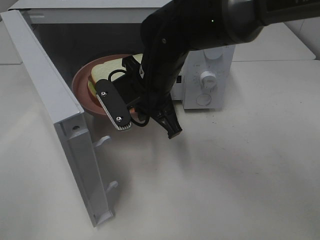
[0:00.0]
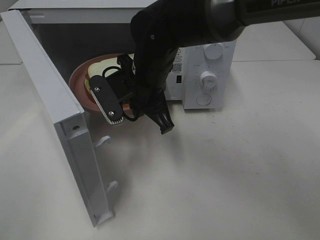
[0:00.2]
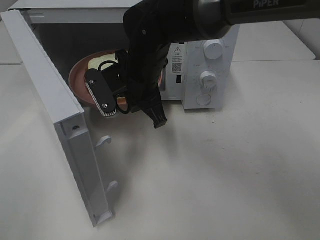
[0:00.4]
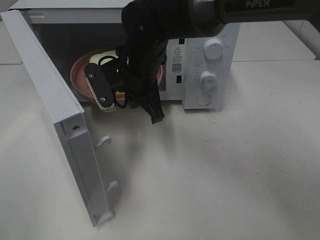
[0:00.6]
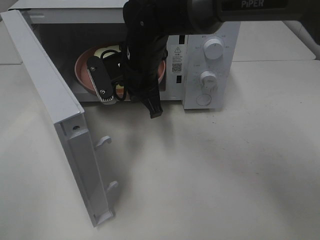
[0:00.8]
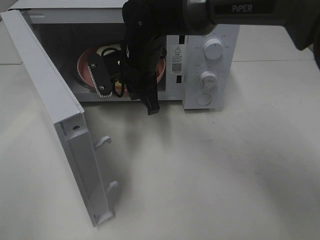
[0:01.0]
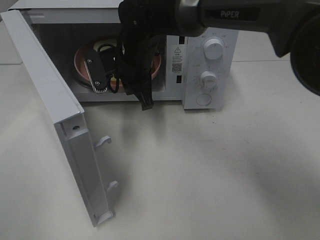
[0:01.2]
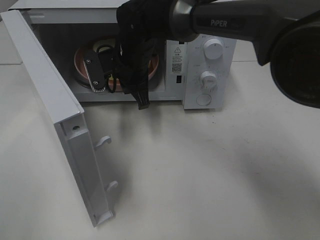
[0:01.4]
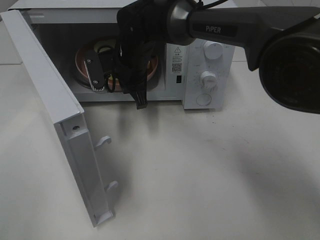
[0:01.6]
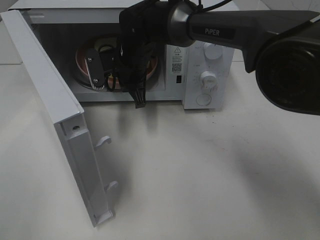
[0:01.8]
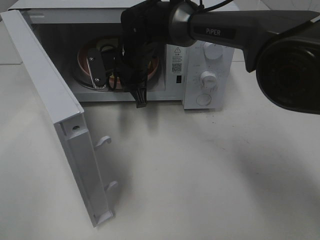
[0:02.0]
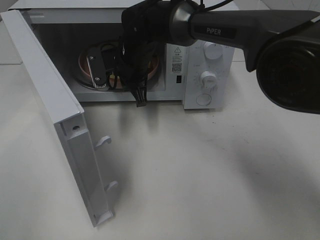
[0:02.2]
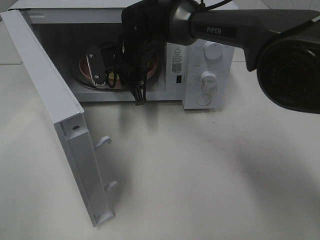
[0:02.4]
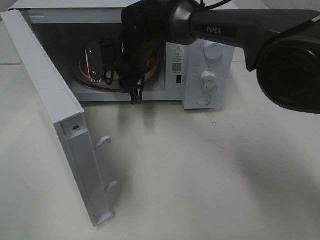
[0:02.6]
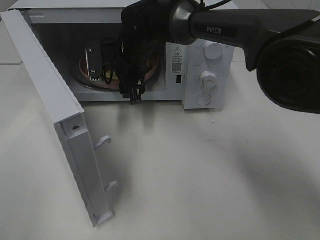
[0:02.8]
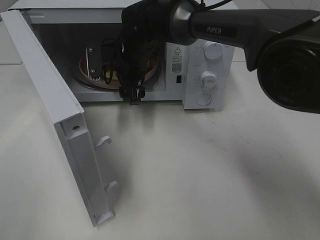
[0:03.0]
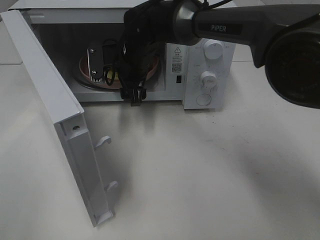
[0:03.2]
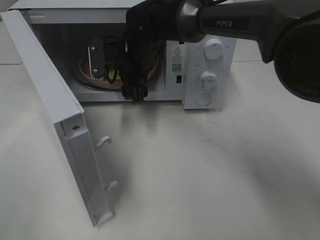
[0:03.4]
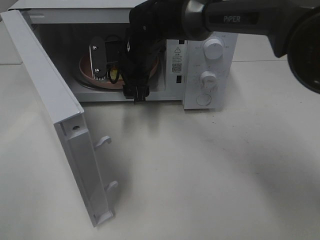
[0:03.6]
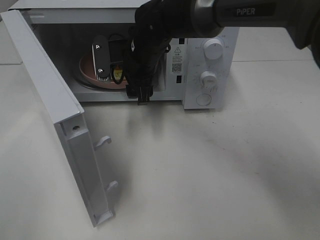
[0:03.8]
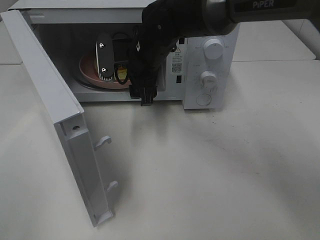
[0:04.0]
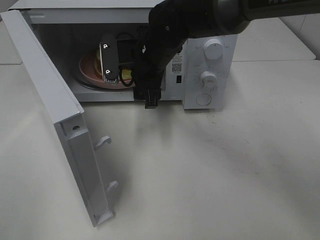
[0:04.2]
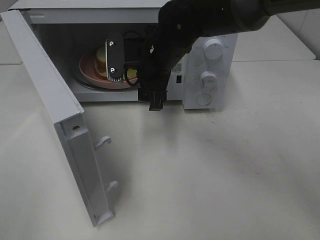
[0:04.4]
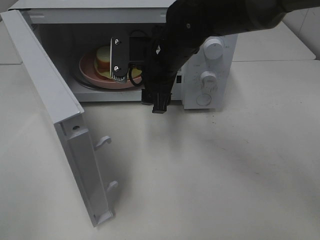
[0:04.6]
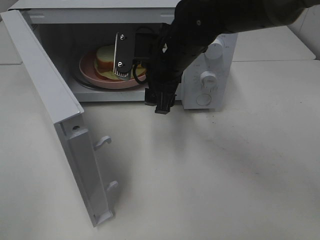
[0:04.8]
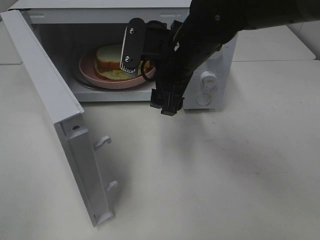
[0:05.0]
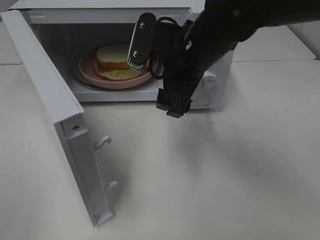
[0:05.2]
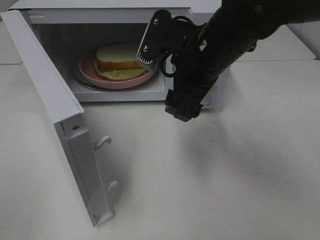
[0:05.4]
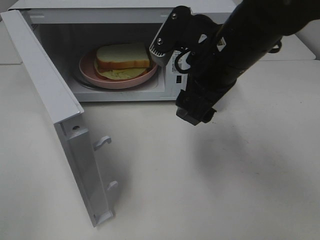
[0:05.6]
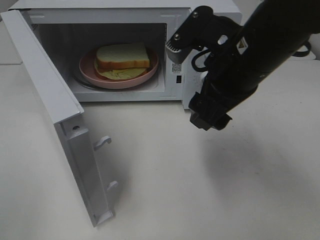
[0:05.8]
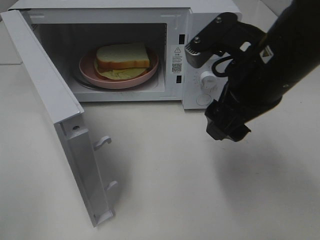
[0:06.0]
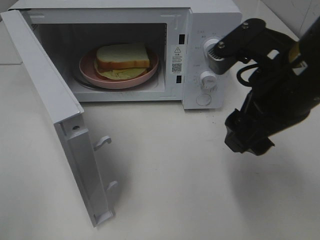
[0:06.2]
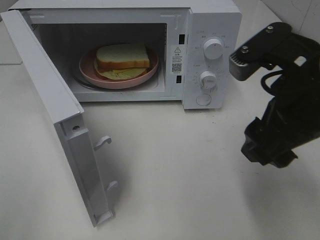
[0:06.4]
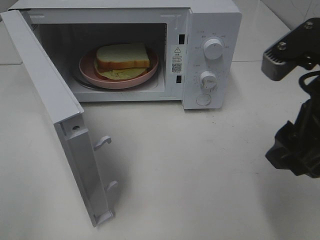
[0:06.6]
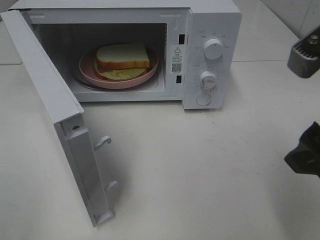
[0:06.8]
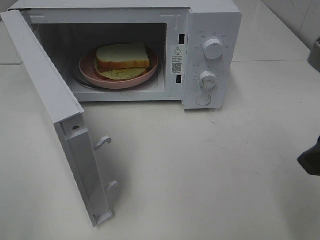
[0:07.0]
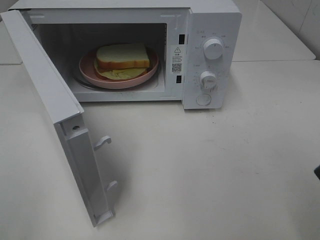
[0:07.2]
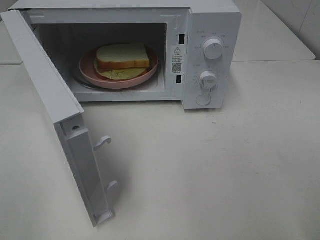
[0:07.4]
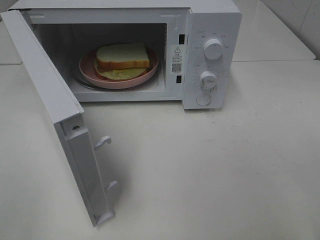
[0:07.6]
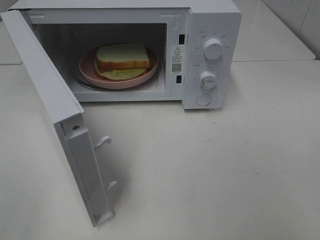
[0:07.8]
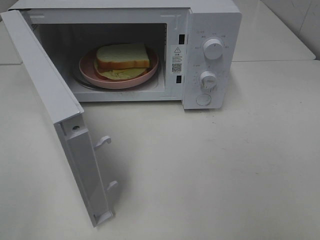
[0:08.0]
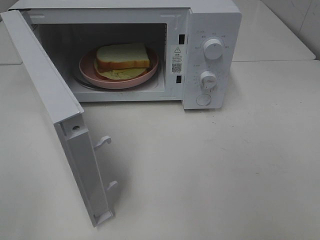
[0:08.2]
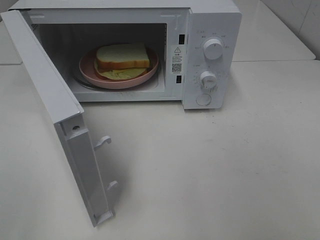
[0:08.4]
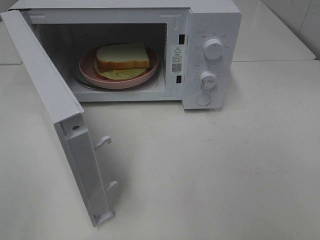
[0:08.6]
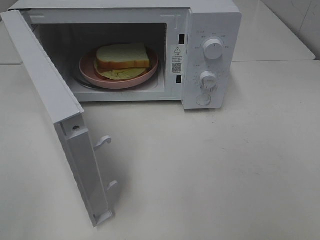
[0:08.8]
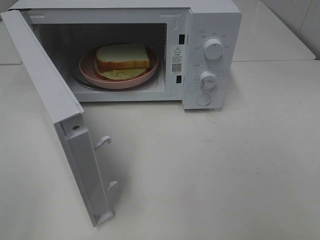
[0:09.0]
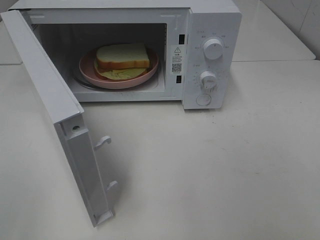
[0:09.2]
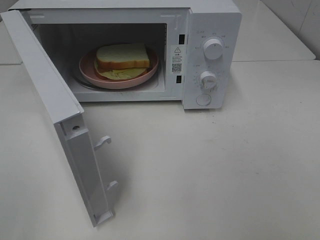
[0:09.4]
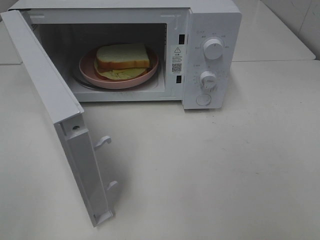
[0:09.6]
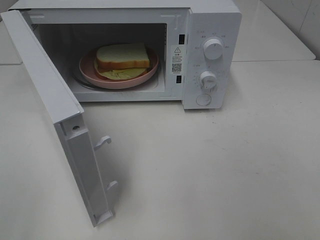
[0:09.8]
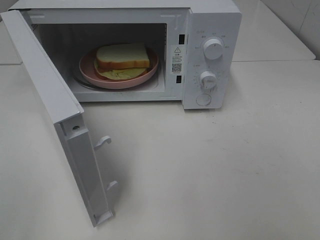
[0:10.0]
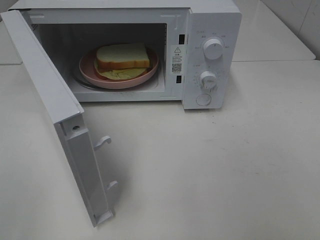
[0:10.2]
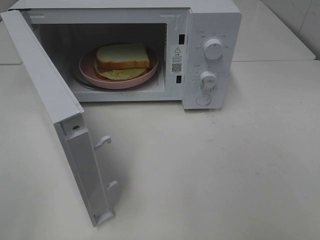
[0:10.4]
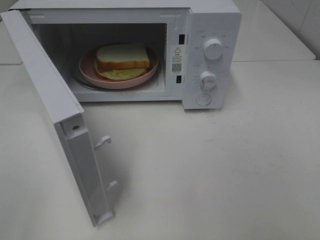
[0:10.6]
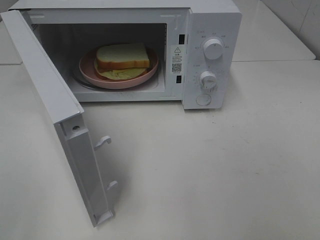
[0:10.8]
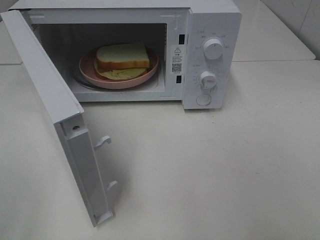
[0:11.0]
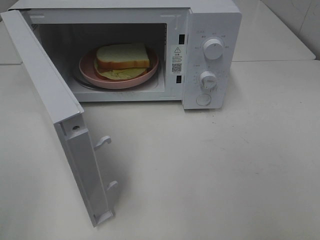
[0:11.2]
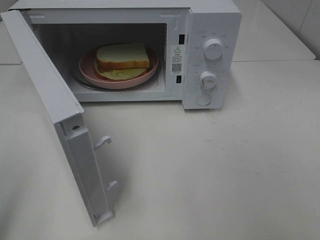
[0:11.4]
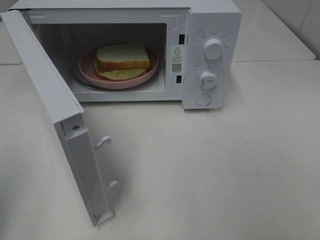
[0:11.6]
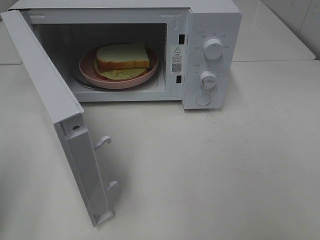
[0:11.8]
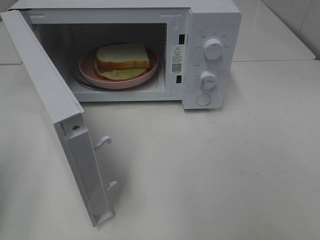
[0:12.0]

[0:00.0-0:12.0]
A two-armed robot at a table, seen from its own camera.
Task of the whole recording: Heat Sandwich.
Step, 0:00.0 to 0:03.8: Right hand: place the plate in the microwave.
0:00.0 to 0:01.6: The right gripper goes about 10 cm forward.
0:01.6 to 0:03.0: The right gripper opens its fingers.
0:03.0 to 0:04.4: The right gripper is displaced backward and to the right by approximately 10 cm.
0:04.4 to 0:06.0: The right gripper is displaced backward, to the right and upward by some 20 cm.
0:06.0 to 0:07.6: The right gripper moves backward and to the right, some 20 cm.
0:09.0 to 0:10.4: Neither gripper changes place.

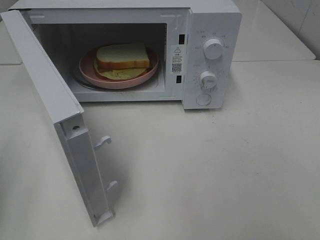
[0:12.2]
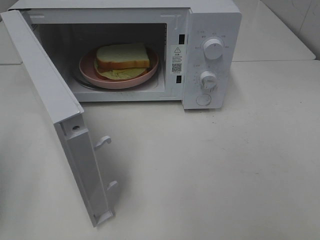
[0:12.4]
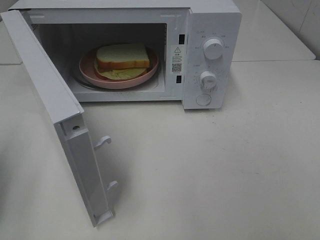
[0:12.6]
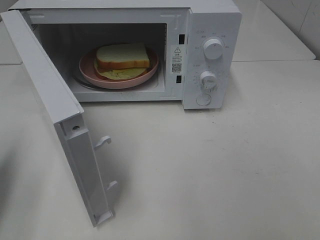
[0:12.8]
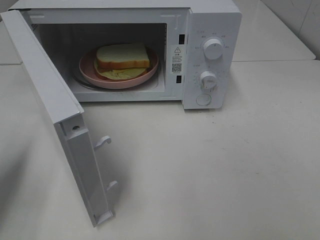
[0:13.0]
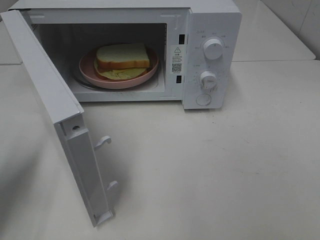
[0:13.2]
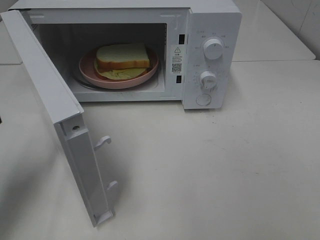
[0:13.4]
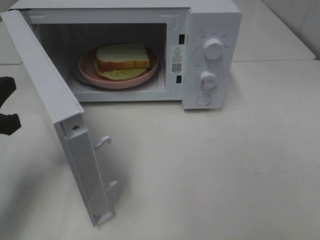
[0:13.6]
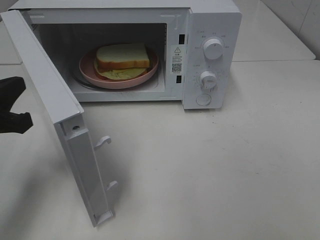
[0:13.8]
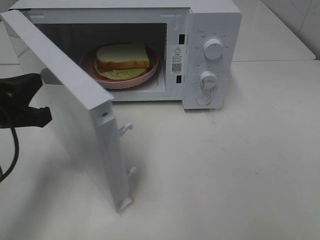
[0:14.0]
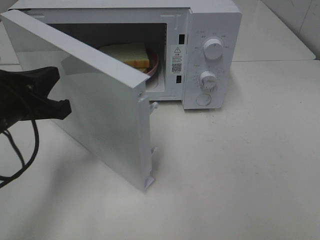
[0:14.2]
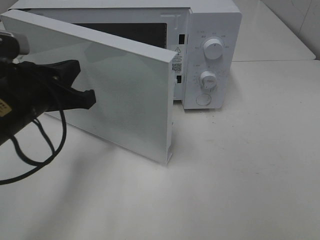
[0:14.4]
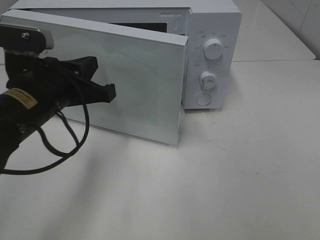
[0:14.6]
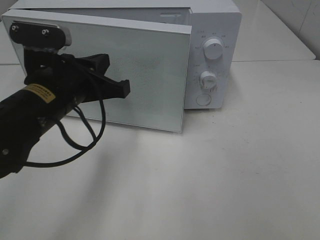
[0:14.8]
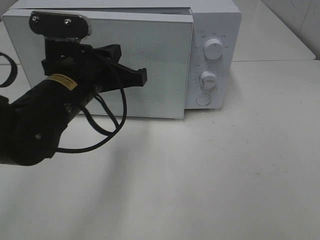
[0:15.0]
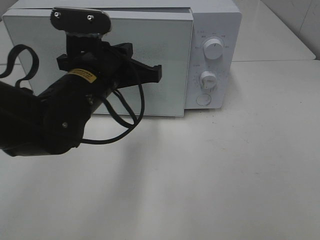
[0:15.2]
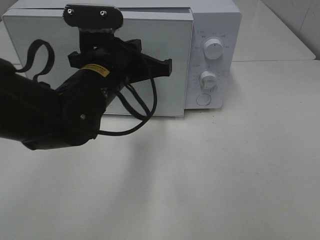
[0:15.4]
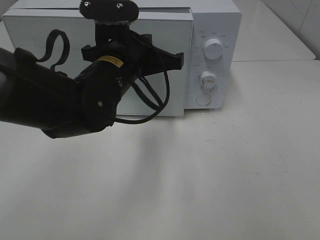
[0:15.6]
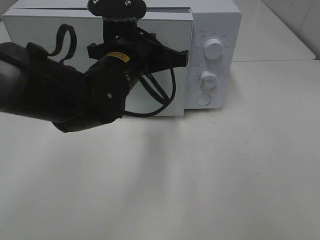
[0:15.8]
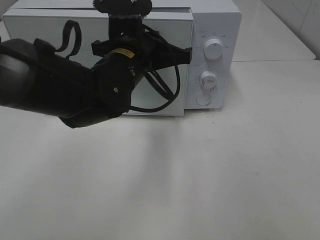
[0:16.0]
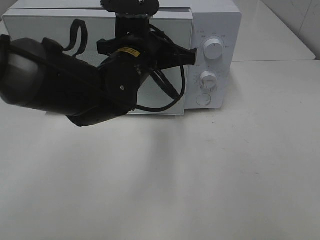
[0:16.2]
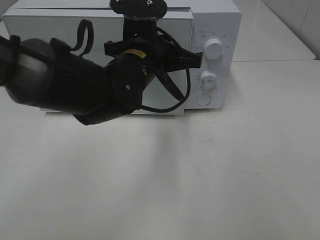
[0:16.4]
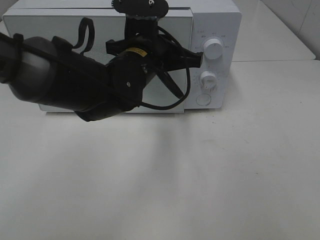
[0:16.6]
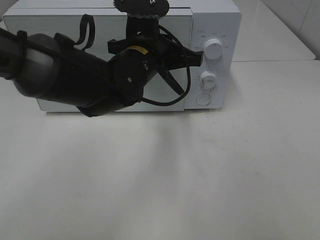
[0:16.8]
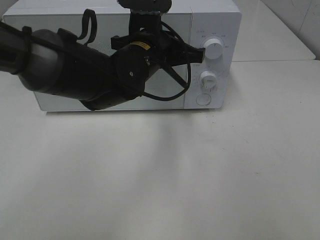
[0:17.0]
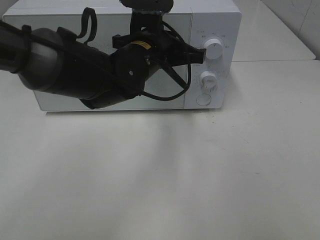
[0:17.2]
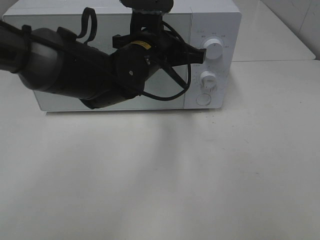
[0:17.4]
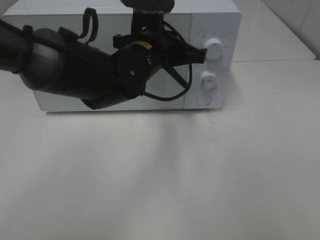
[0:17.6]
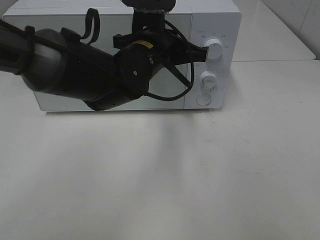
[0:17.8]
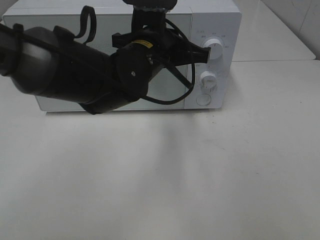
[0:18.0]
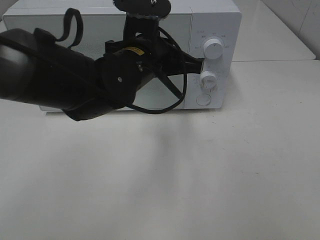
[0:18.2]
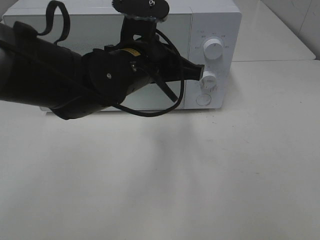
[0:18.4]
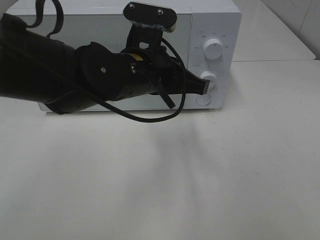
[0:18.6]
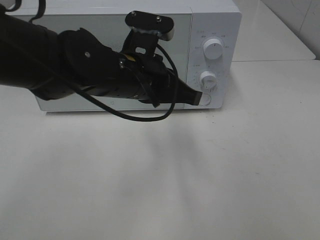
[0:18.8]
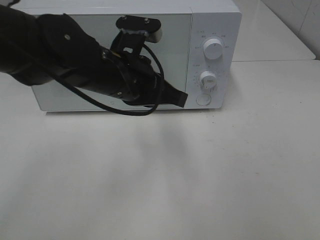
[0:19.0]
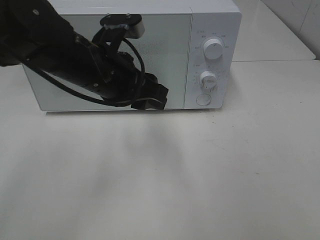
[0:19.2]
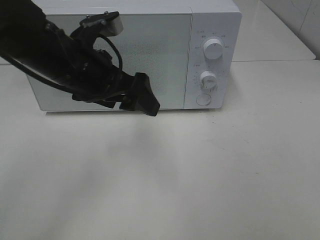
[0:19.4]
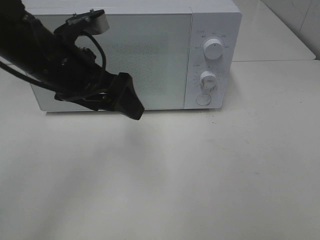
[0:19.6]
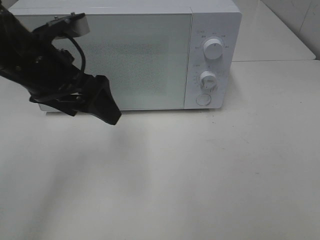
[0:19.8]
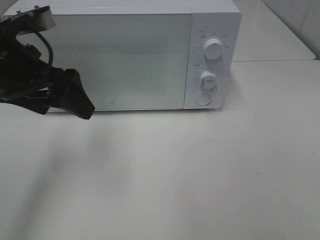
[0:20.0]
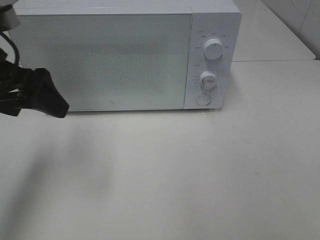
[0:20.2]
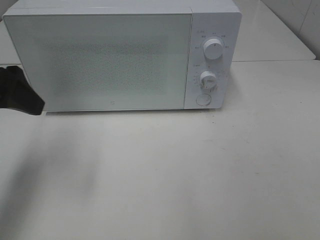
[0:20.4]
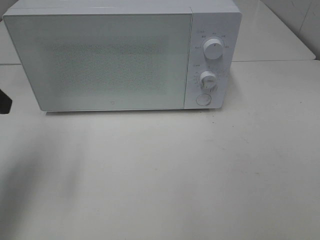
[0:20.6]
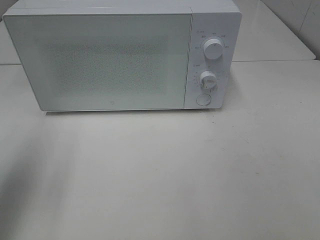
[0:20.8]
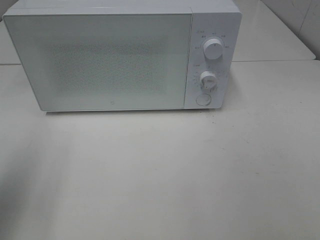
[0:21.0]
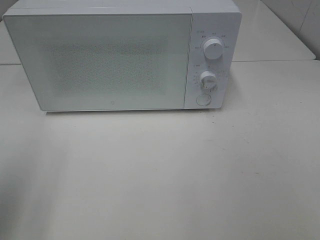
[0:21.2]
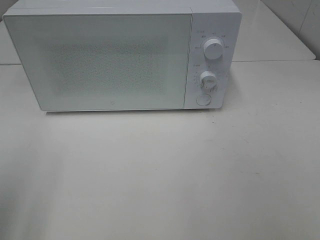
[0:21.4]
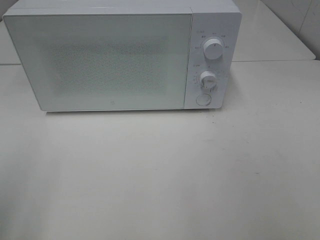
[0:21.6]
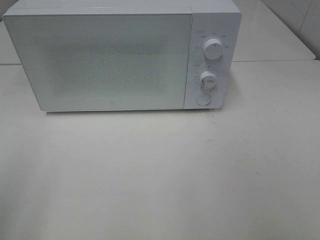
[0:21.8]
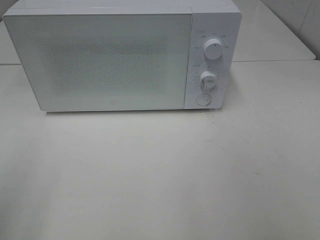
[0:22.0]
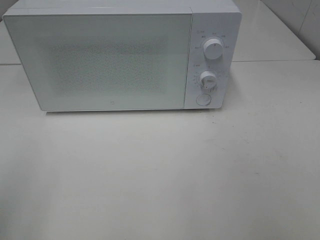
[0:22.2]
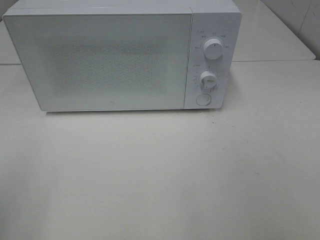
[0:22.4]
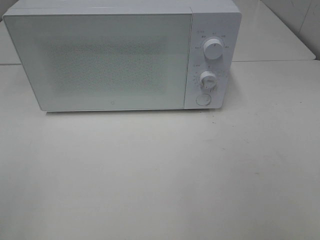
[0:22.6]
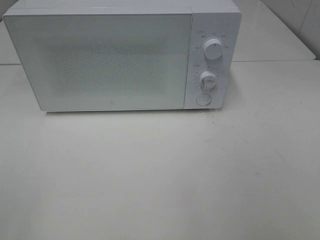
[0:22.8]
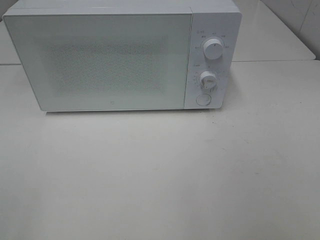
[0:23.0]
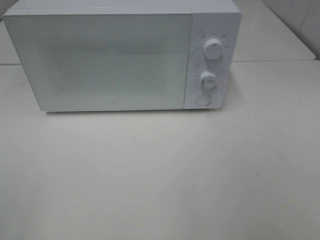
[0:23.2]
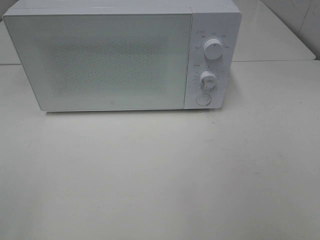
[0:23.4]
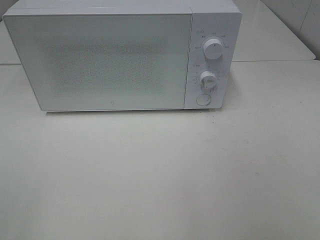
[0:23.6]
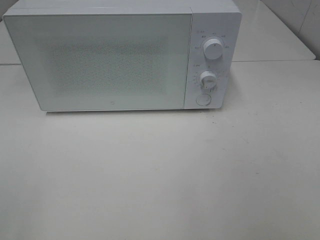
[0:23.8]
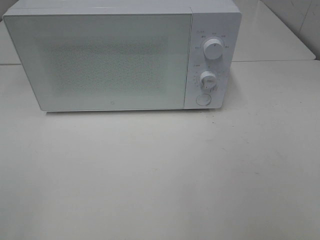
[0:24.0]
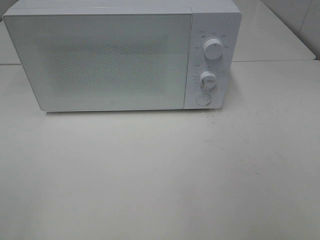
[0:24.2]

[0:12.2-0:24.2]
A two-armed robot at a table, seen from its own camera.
Task of the whole recording: Heat Sandwich.
Step, 0:12.2 to 0:19.0: Left hand: close the microwave door.
0:12.2 to 0:13.8: The left gripper heads to the right and forward, covering about 10 cm.
0:13.8 to 0:15.2: The left gripper goes about 20 cm to the right and forward.
0:15.2 to 0:16.6: The left gripper is displaced to the right by roughly 5 cm.
0:16.6 to 0:18.2: The grippers make only small movements.
0:18.2 to 0:19.8: The left gripper heads to the left, covering roughly 15 cm, and opens up.
0:19.8 to 0:21.2: The left gripper shifts some 20 cm backward and to the left.
0:21.2 to 0:22.6: The left gripper travels backward by approximately 10 cm.
